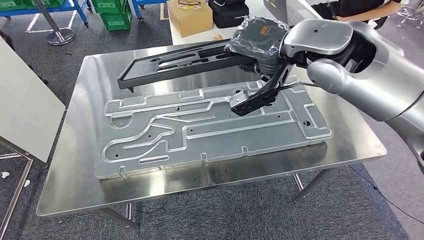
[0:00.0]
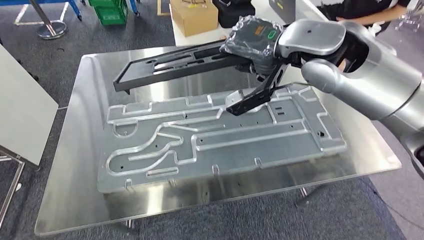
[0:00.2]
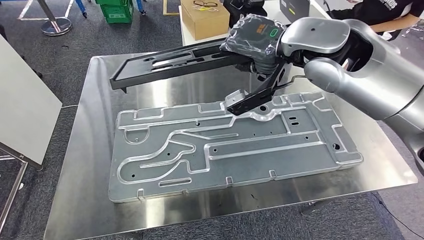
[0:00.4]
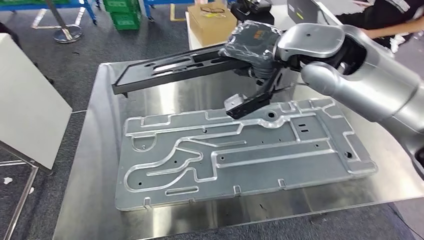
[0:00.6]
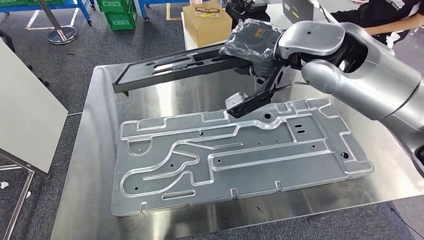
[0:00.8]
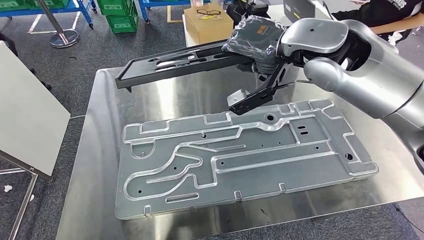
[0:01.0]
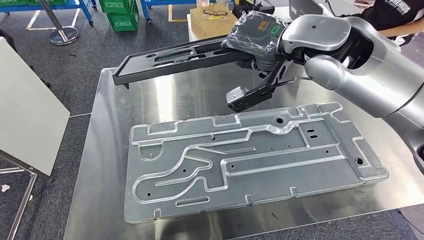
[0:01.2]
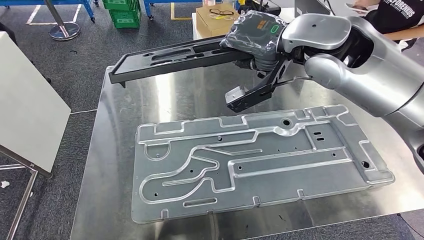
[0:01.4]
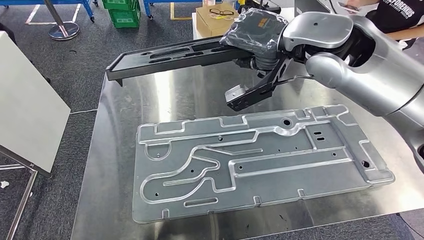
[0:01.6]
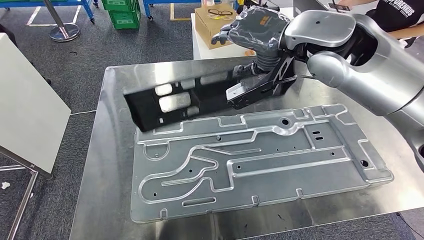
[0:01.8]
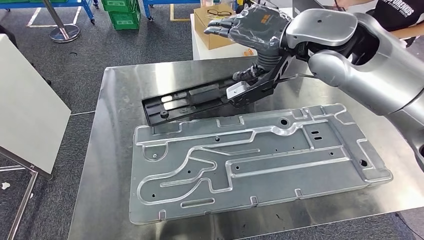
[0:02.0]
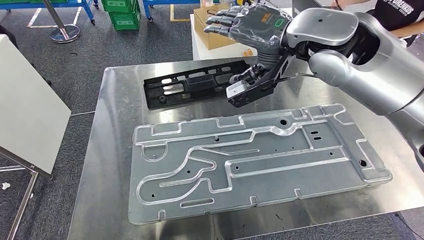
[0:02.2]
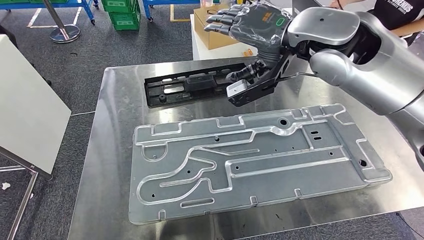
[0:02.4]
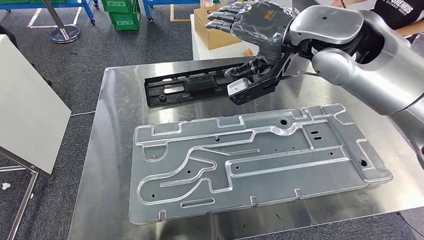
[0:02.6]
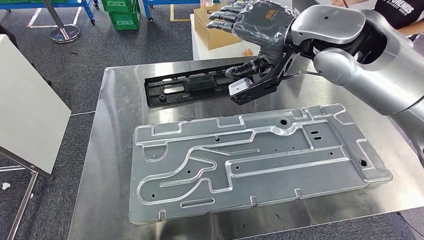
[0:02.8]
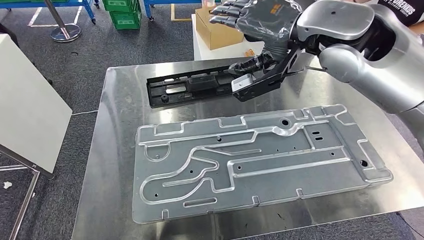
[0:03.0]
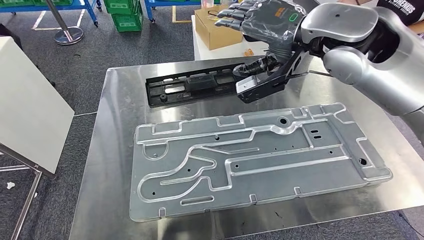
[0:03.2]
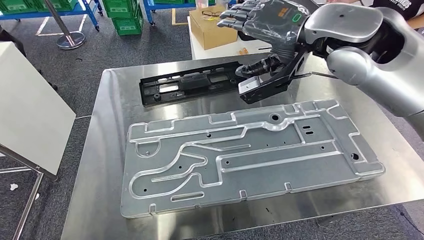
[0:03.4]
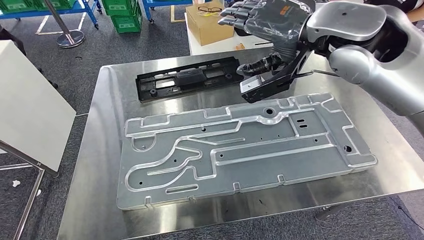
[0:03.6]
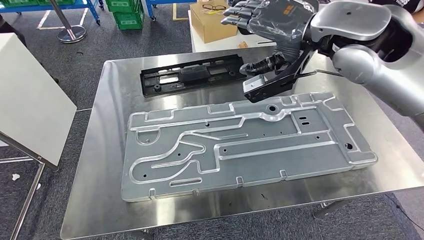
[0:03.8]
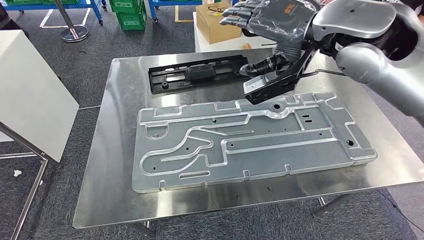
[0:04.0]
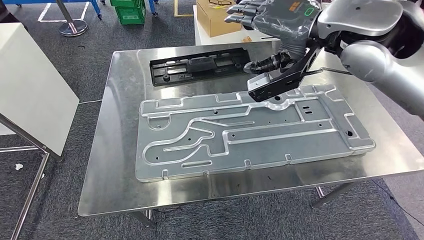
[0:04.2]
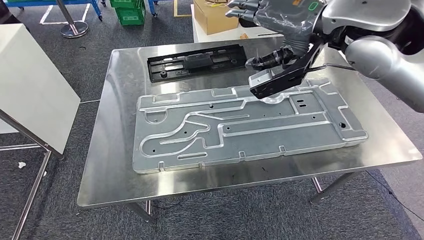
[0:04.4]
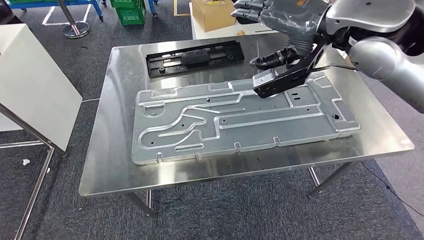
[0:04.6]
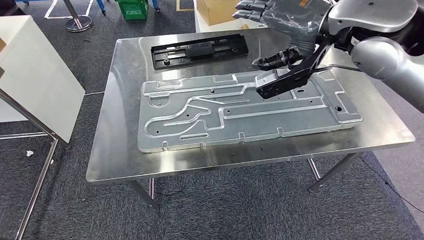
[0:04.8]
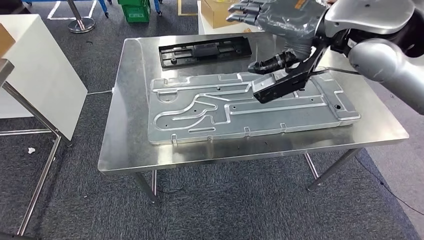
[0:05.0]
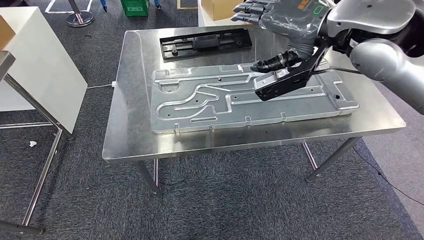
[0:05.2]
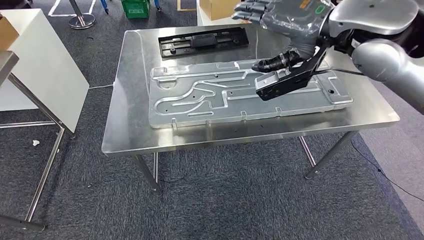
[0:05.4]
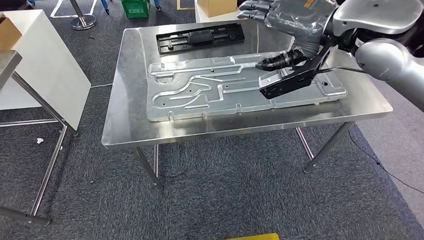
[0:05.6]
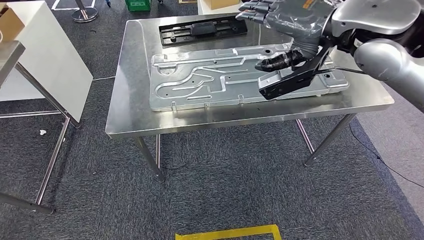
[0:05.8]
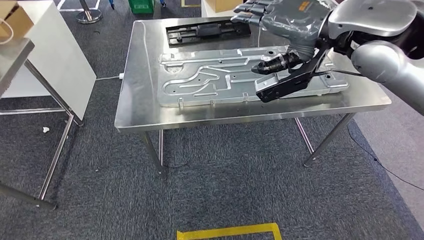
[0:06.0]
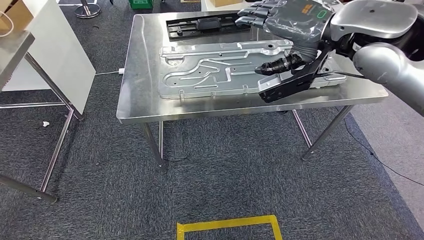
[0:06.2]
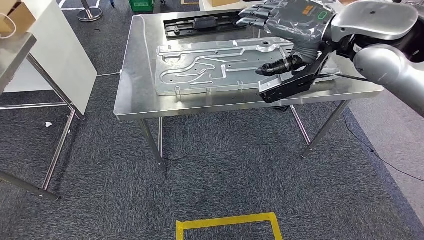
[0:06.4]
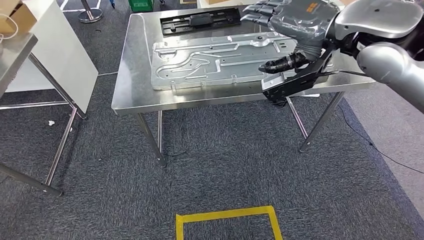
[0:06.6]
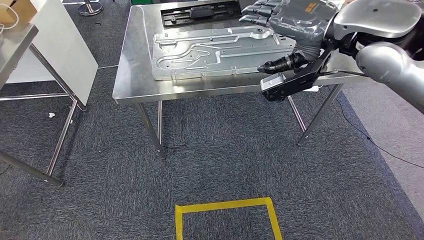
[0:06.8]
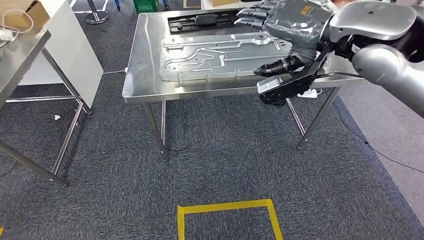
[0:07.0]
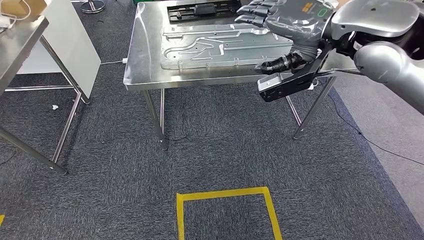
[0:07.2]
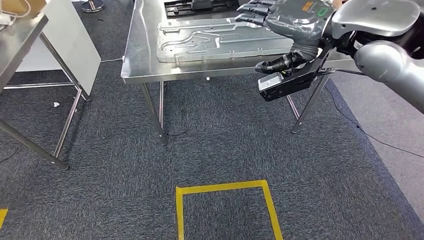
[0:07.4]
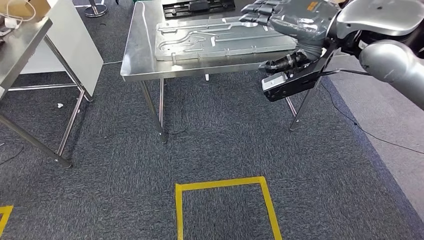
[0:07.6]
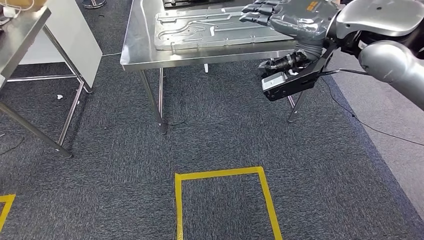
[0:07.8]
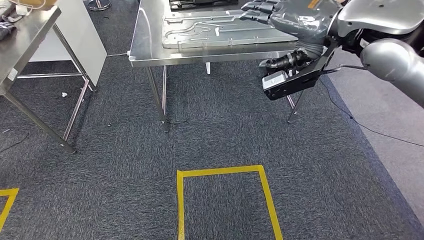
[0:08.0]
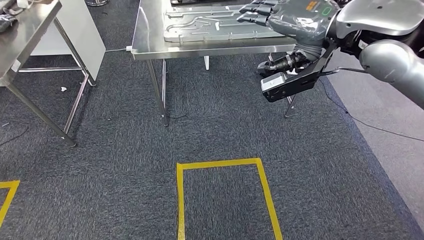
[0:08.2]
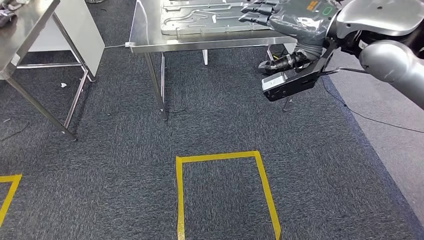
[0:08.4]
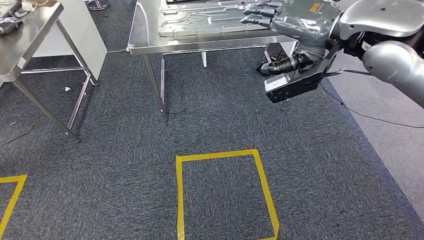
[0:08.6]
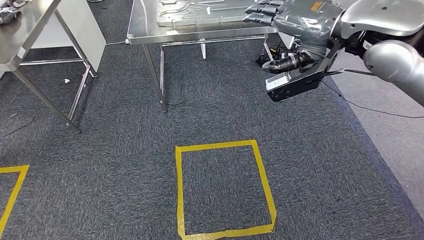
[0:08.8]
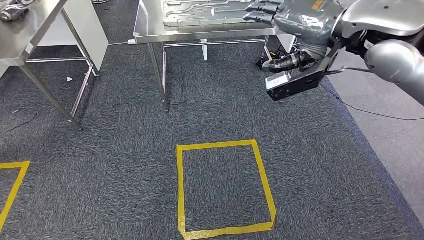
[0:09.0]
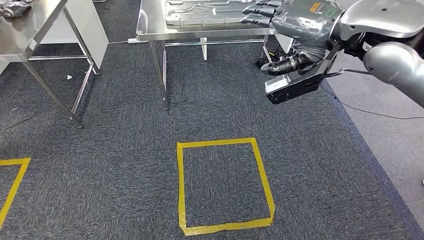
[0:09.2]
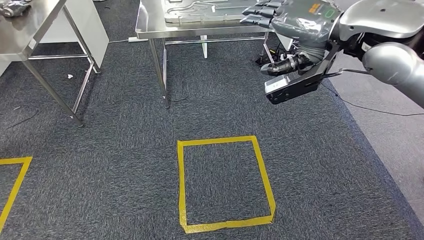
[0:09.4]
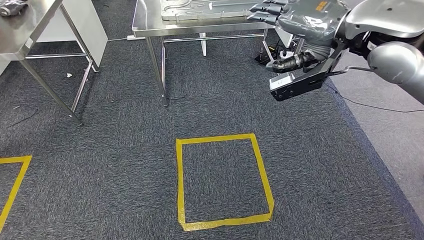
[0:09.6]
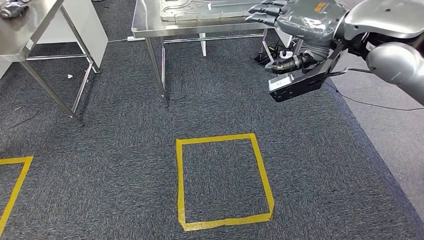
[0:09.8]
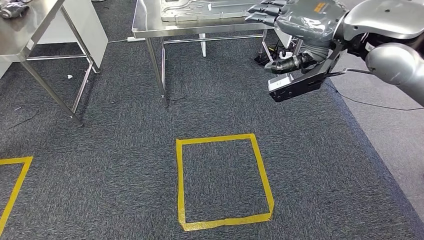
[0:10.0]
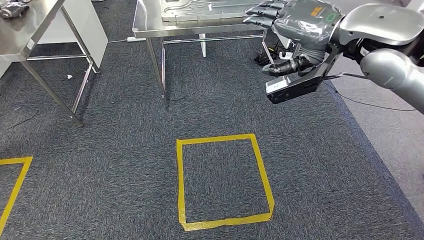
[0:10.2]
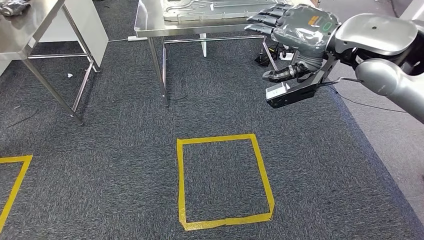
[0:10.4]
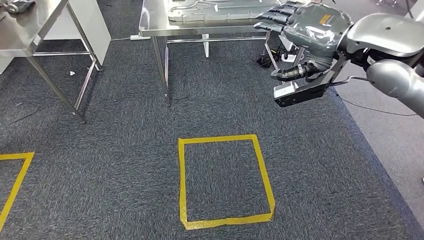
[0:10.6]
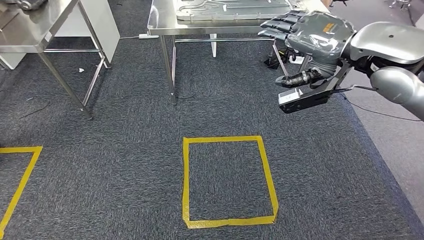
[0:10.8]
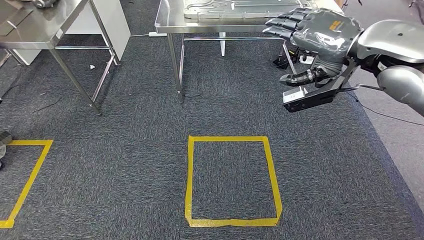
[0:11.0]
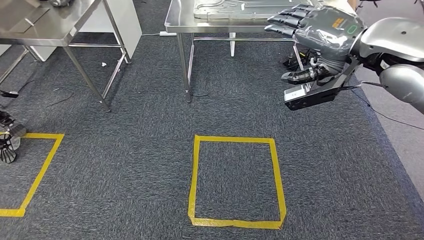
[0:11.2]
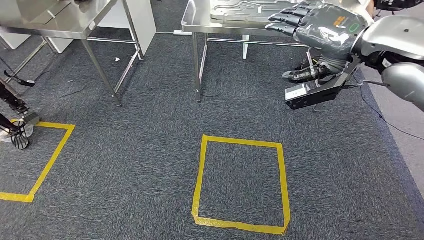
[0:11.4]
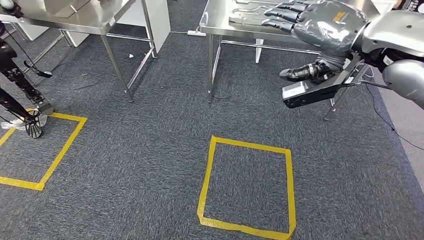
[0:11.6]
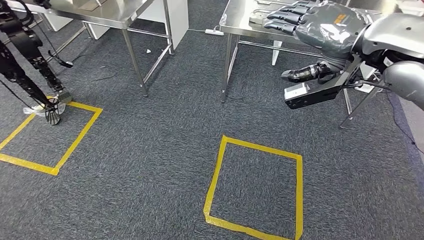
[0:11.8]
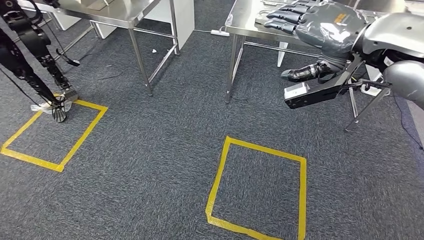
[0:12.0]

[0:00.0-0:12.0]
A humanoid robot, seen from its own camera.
Step, 0:00.0 to 0:05.2: Insert the large material into the corresponding hole on the workbench.

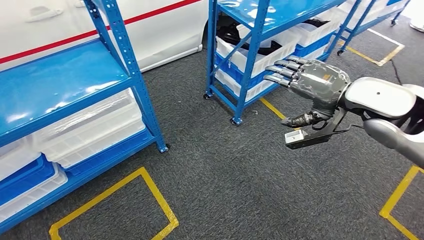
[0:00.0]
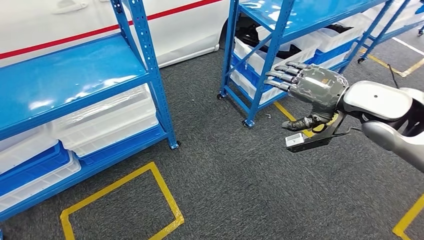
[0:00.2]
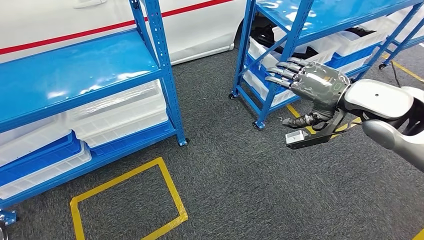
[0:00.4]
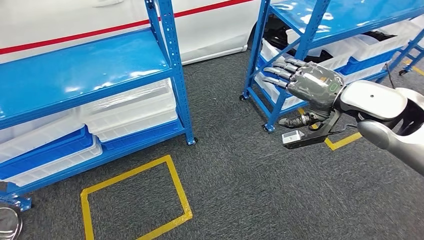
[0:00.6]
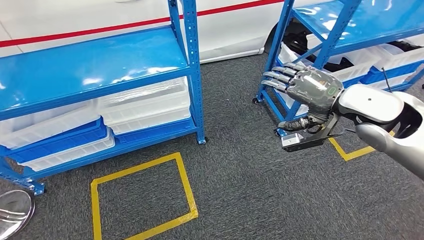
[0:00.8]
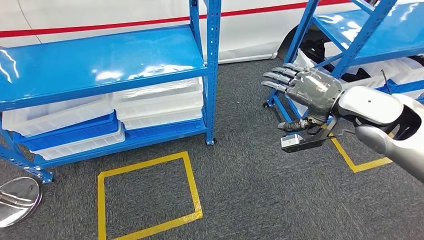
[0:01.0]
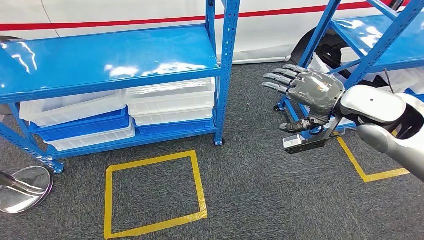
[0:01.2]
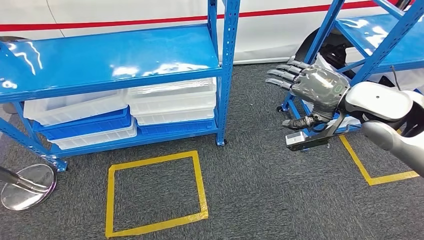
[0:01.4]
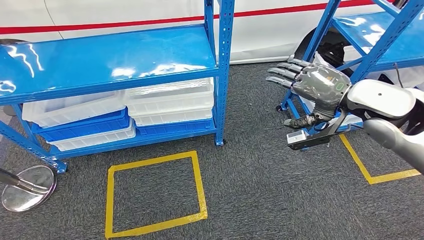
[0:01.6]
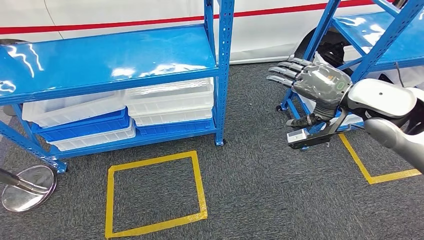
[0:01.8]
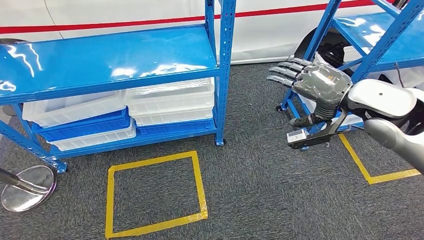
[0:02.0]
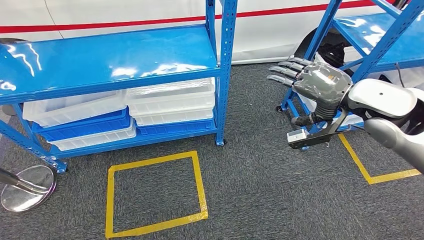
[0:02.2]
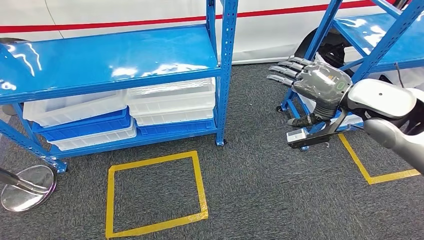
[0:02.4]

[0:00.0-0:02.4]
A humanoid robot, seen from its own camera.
Step, 0:00.0 to 0:02.4: Move to the initial position of the shelf.
0:01.2 to 0:02.4: Both hands stay about where they are.
